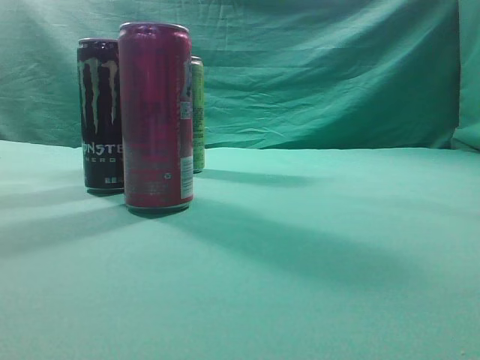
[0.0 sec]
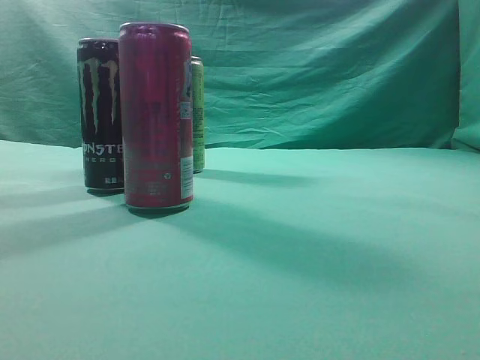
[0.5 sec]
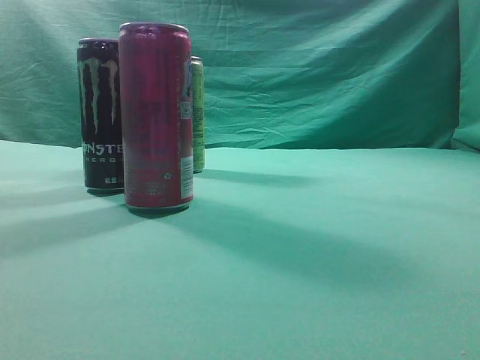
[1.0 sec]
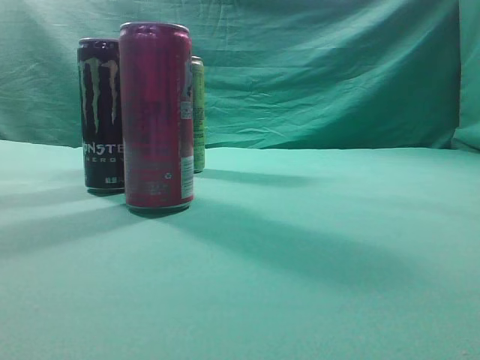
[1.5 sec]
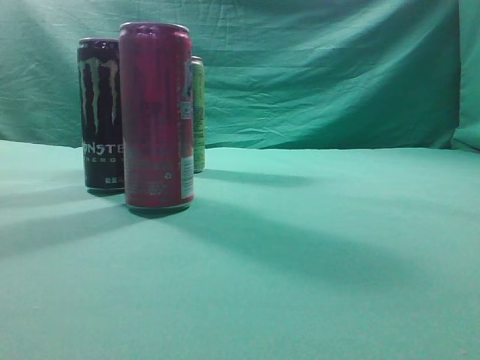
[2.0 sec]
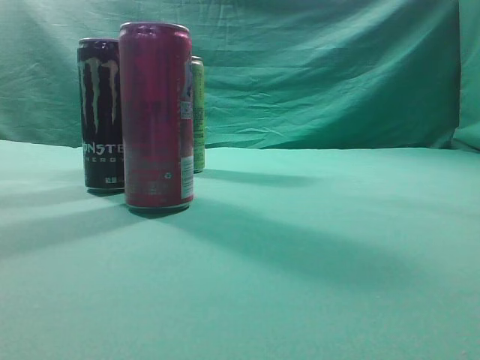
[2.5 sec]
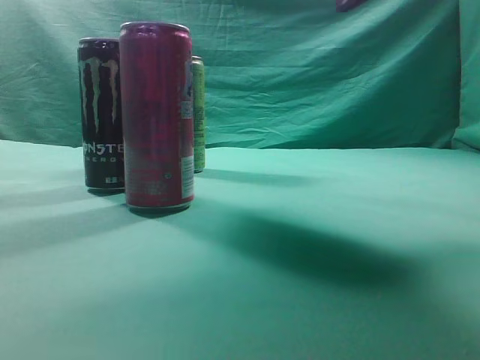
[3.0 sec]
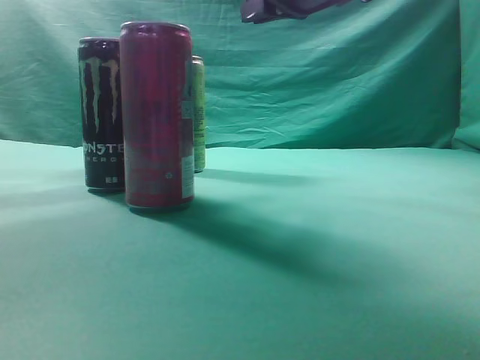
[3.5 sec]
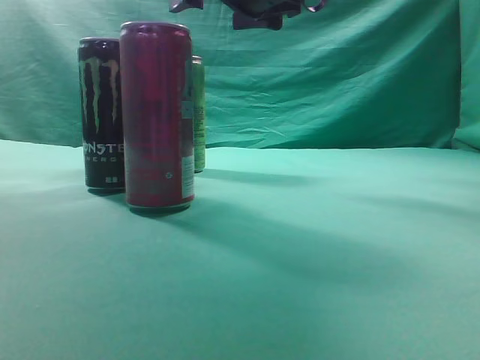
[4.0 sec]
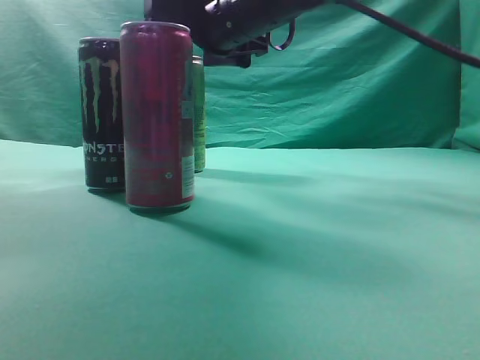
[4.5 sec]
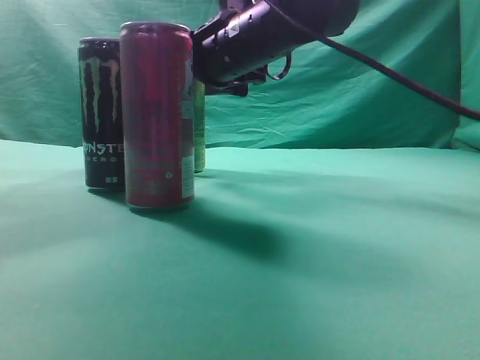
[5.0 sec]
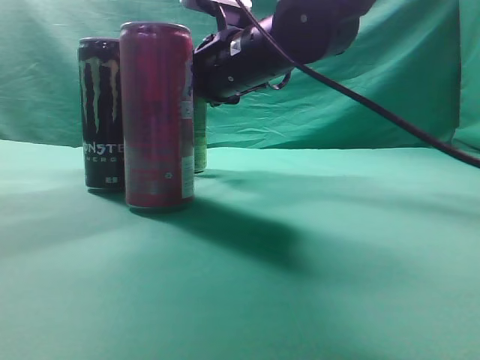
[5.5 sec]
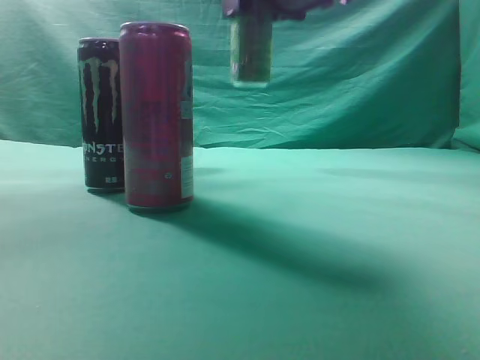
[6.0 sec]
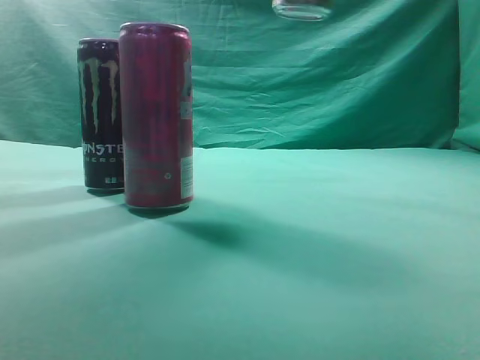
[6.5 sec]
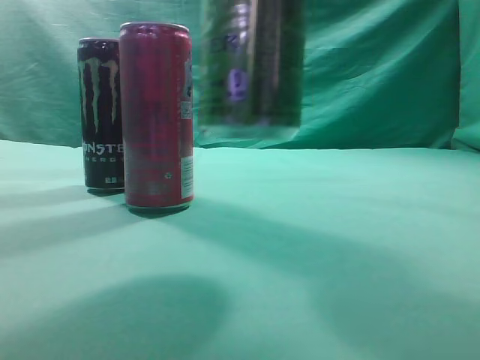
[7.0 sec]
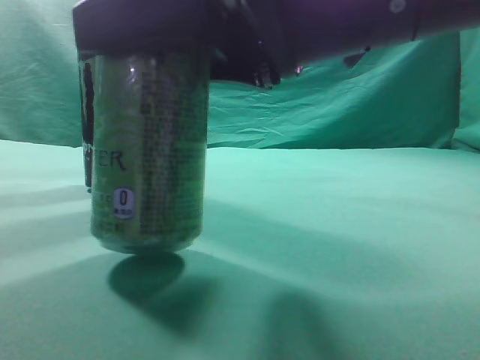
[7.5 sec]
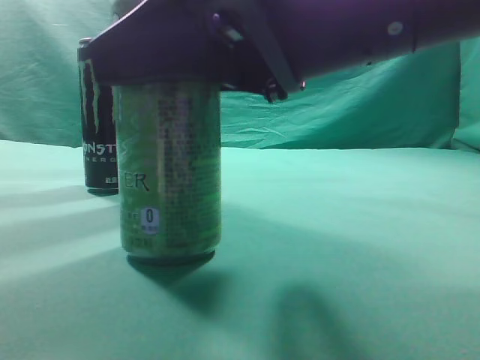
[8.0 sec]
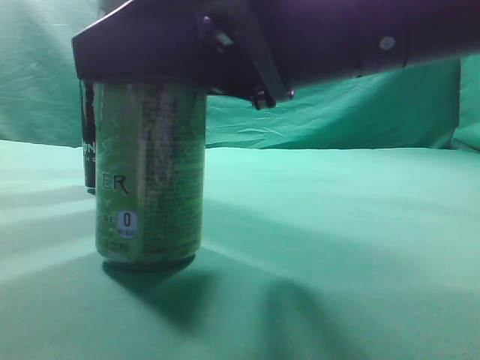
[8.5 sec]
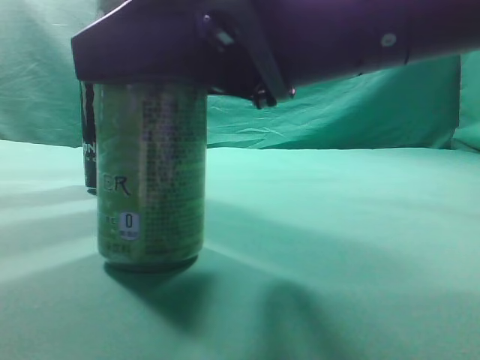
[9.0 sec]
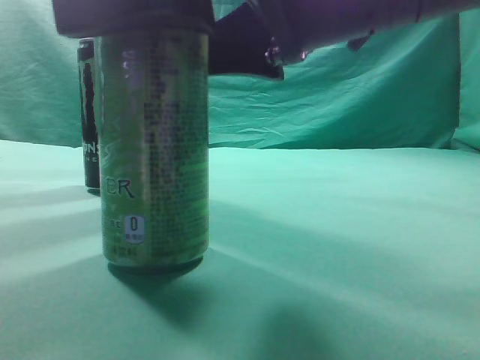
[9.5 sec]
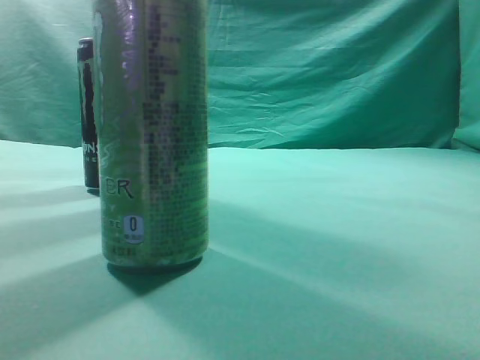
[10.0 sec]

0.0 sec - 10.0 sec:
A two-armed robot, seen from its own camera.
Task of the whole recording: move one drink among three beverages.
Step, 0.0 sec - 6.0 sec: Grasp the beverage bottle placed at the back of the desk.
2.0 sec - 4.0 sec: The right gripper shifts roughly 40 cm forward and to the left, and opens.
4.0 sec - 6.0 sec: The right gripper goes downward and returns, about 10 cm each way.
6.0 sec - 8.0 sec: The right gripper is displaced backward and downward by approximately 25 cm.
8.0 sec - 10.0 sec: The right gripper goes roughly 10 cm upward, and opens and closes again.
